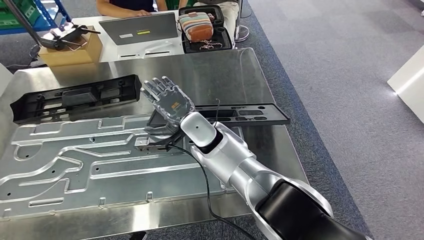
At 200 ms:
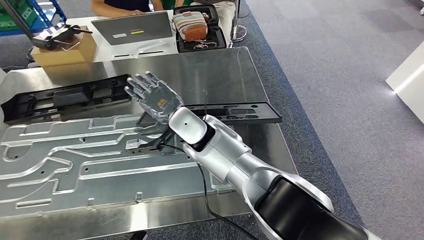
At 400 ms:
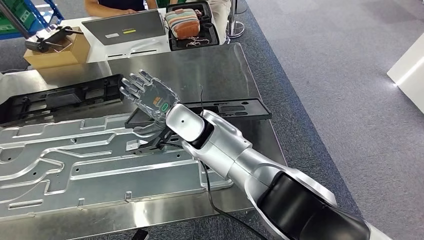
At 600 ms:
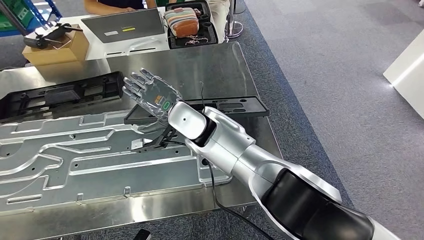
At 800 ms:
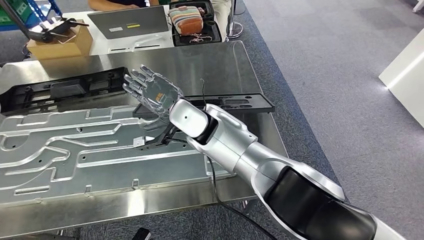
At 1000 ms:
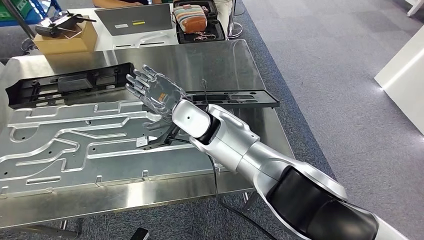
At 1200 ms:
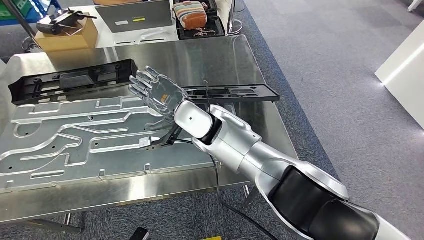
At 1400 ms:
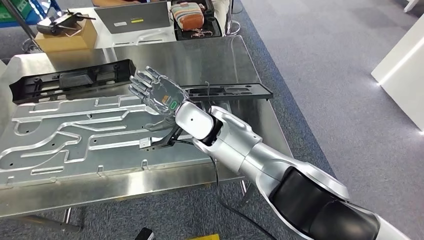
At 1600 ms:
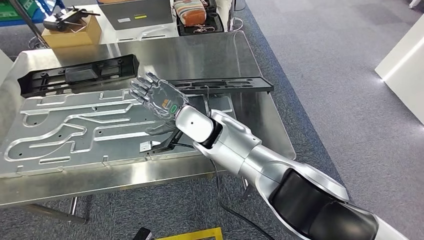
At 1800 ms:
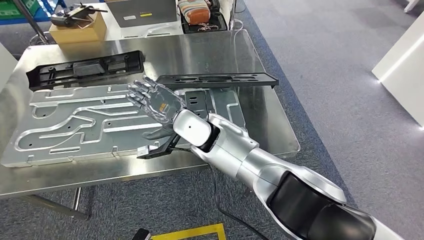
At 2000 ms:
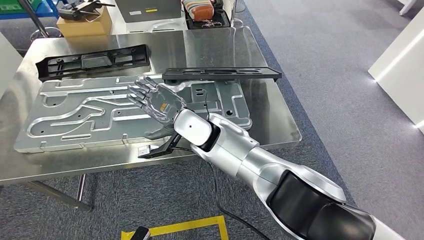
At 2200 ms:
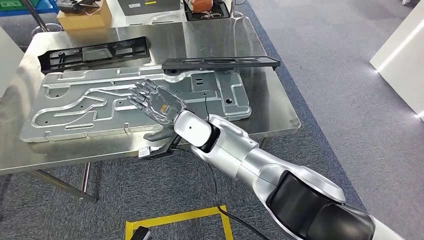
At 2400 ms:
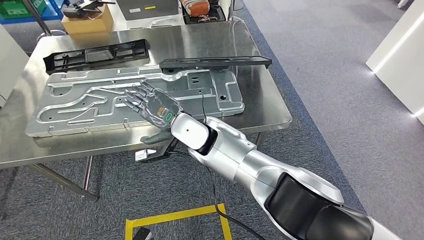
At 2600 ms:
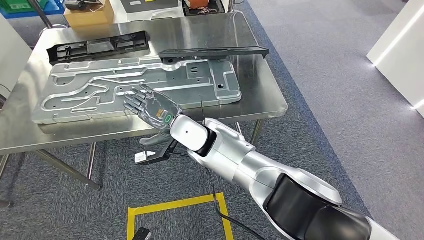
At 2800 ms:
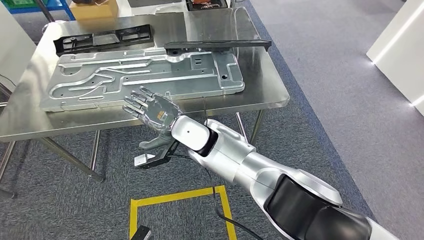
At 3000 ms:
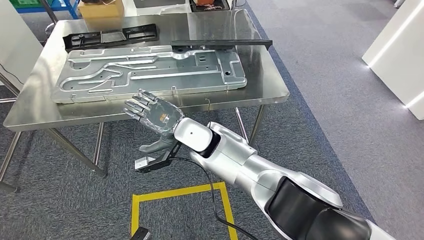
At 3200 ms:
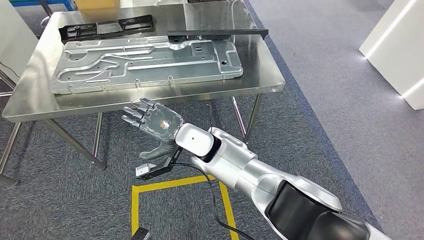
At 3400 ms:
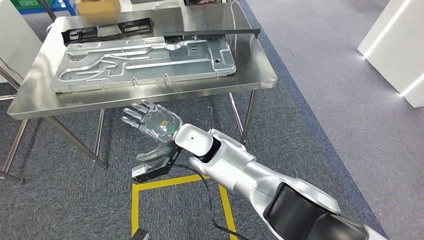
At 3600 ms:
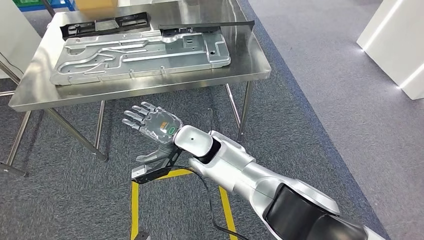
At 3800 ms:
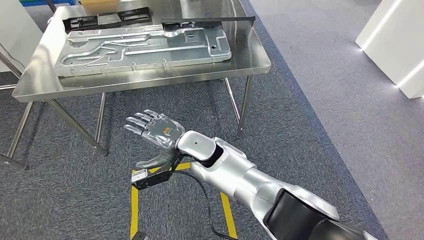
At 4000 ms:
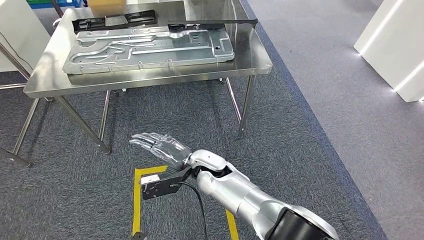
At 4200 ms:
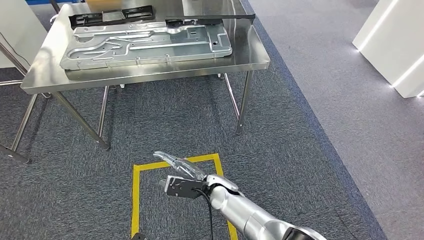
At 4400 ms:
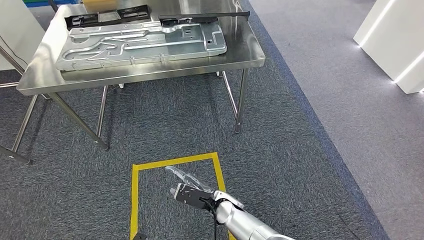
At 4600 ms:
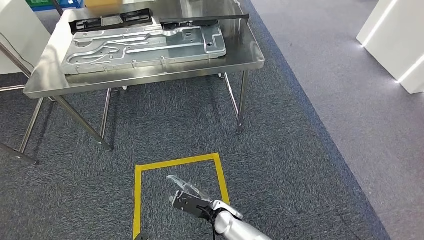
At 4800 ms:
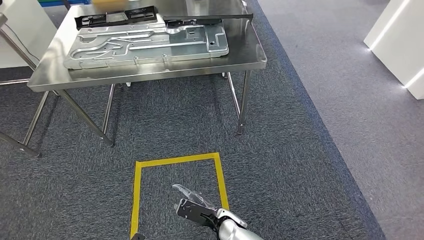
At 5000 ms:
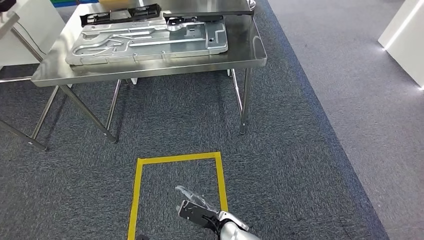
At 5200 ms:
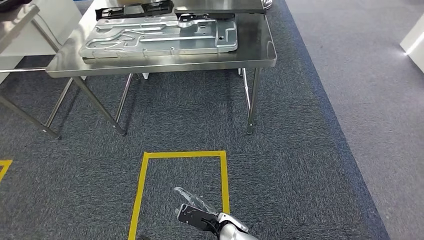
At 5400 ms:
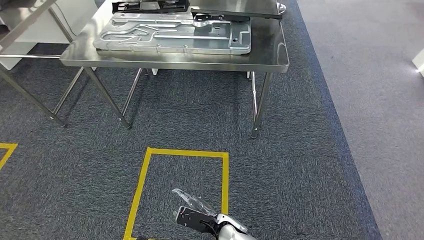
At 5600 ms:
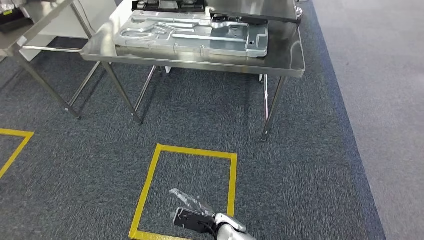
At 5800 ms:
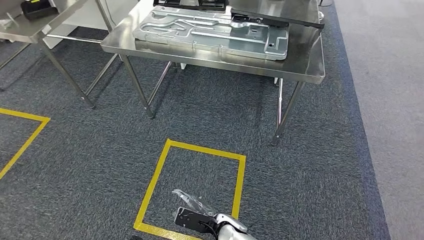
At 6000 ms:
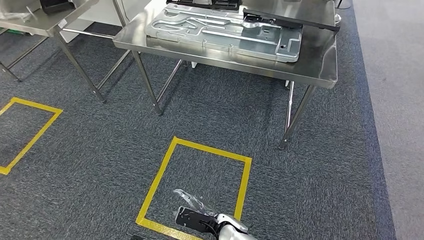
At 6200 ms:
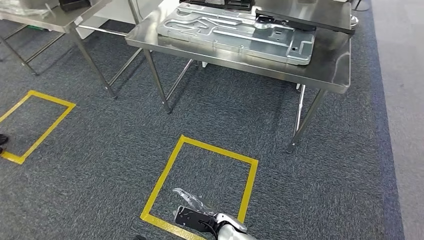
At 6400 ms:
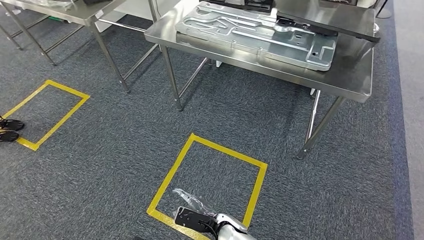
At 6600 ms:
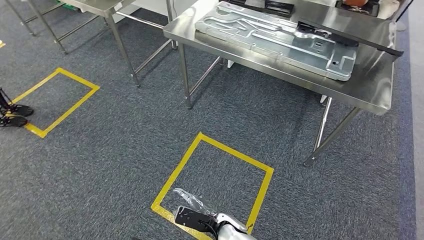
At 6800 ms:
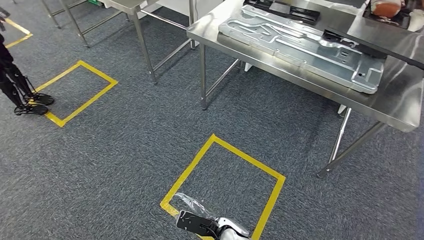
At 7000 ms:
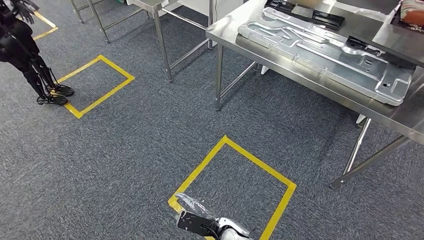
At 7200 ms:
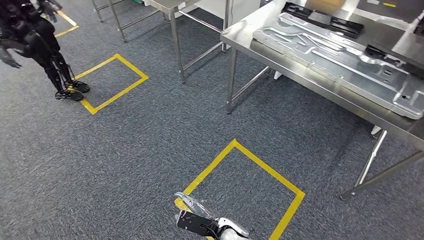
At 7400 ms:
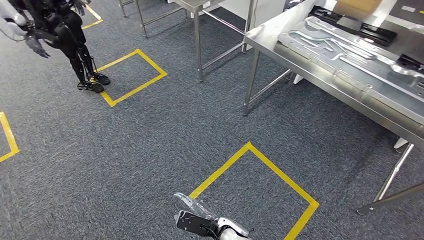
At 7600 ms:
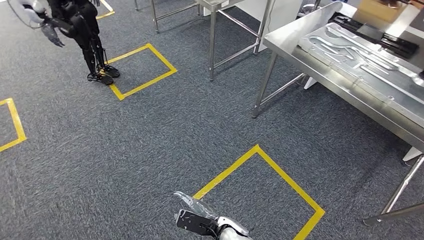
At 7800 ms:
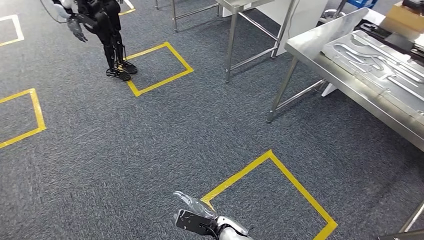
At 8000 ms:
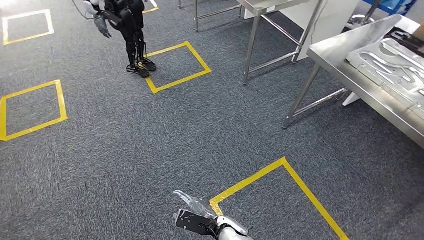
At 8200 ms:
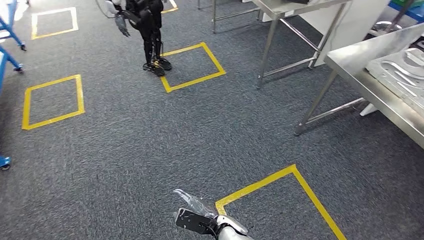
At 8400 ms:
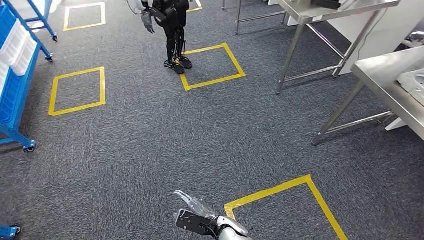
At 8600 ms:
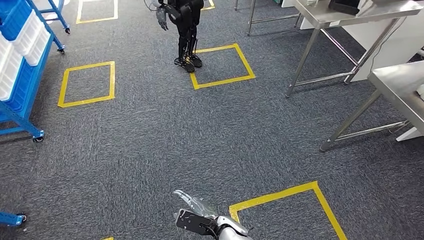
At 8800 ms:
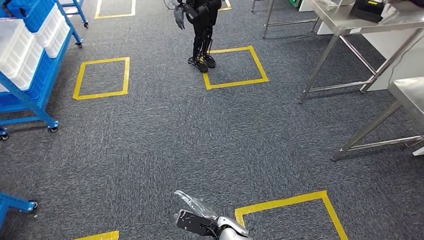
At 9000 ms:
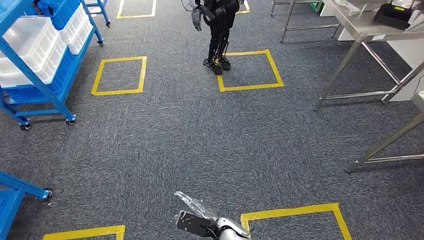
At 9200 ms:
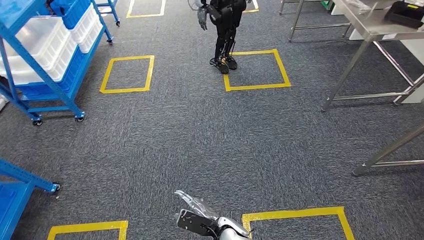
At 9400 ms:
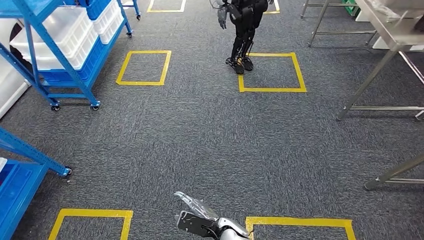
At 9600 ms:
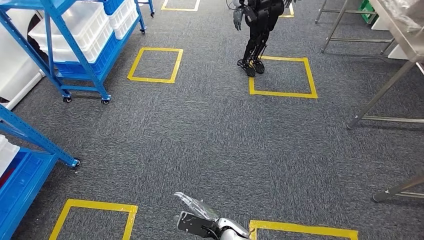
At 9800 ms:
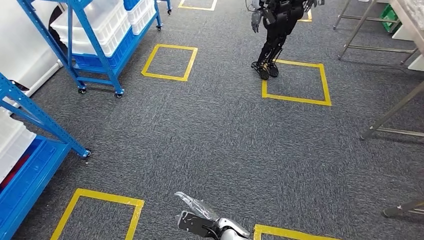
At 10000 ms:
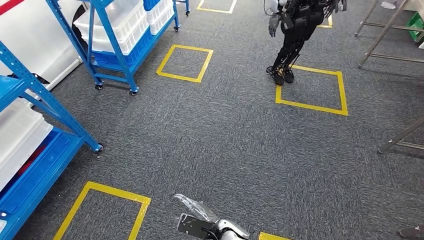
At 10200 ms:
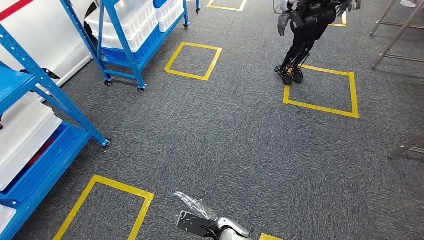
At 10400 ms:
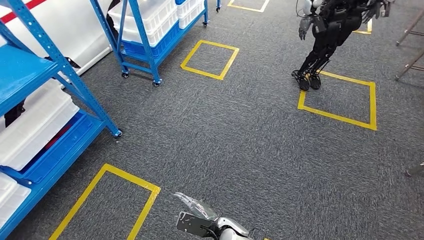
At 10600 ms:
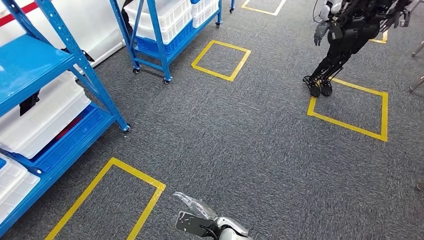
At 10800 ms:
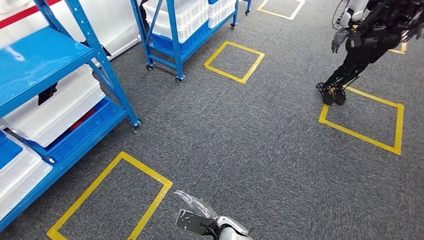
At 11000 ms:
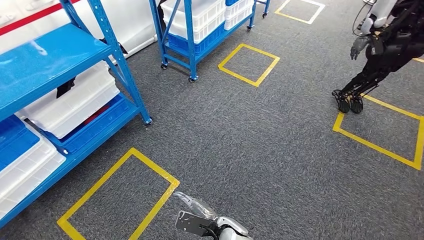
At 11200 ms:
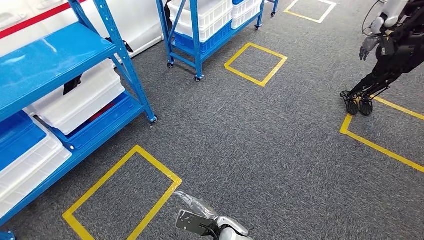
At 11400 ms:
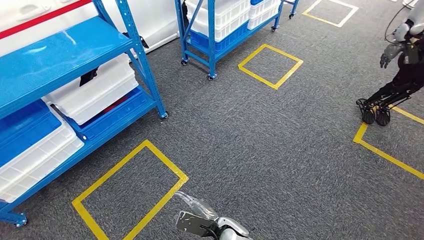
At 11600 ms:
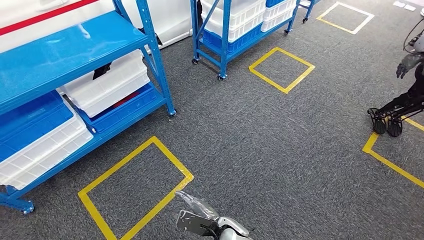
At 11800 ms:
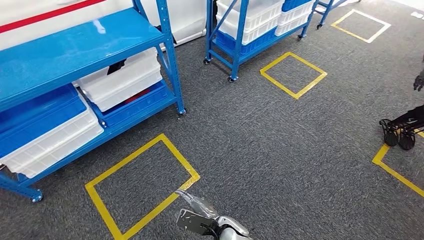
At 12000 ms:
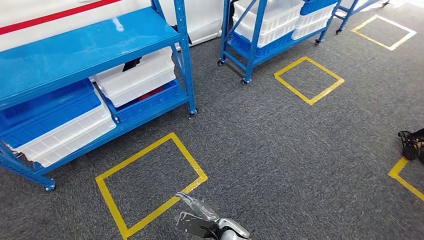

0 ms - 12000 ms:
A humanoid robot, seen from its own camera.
Step, 0 ms - 3200 ms: Insert the large material into the corresponding slot on the workbench.

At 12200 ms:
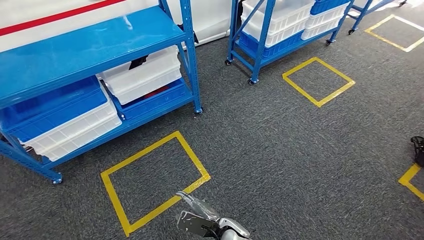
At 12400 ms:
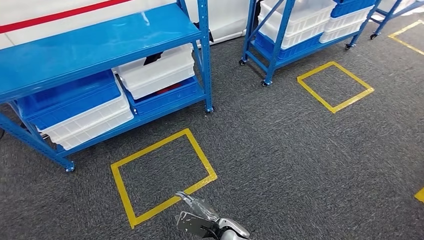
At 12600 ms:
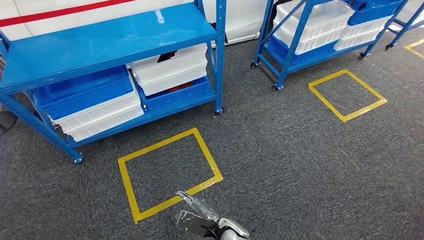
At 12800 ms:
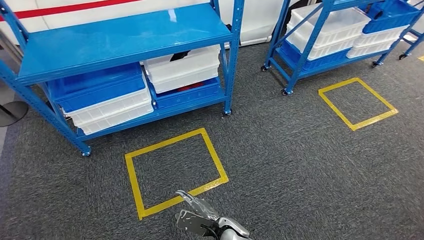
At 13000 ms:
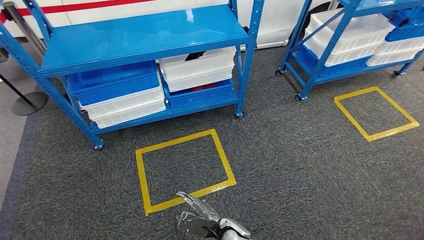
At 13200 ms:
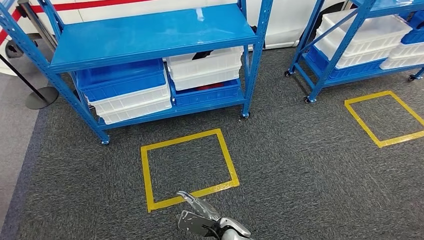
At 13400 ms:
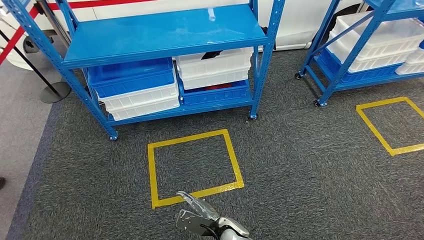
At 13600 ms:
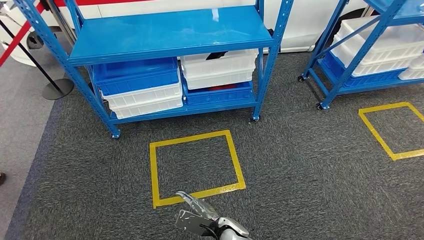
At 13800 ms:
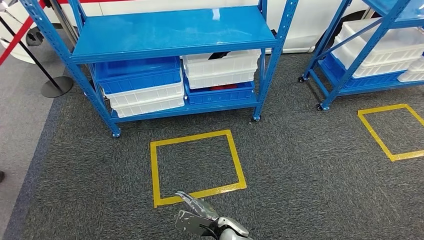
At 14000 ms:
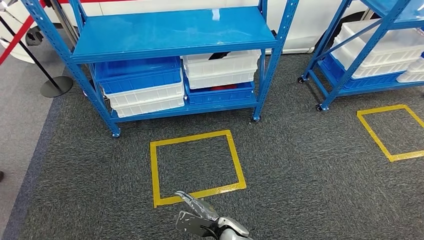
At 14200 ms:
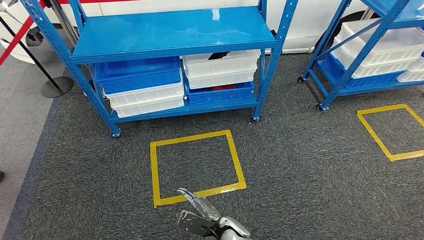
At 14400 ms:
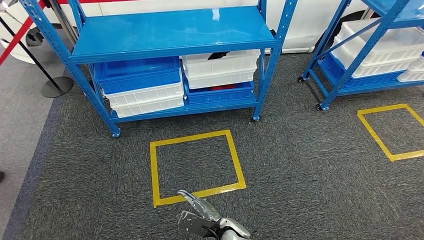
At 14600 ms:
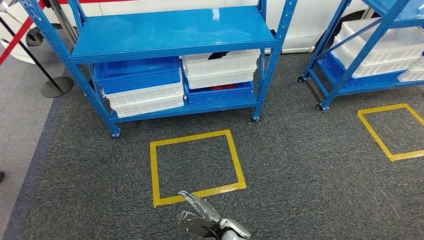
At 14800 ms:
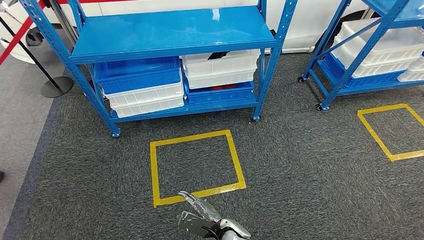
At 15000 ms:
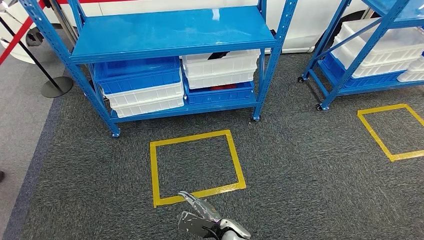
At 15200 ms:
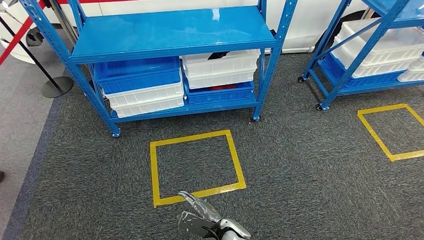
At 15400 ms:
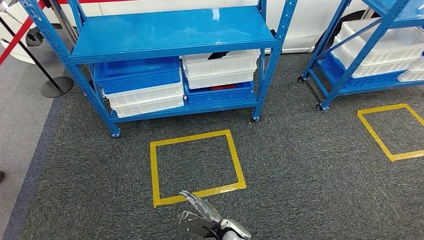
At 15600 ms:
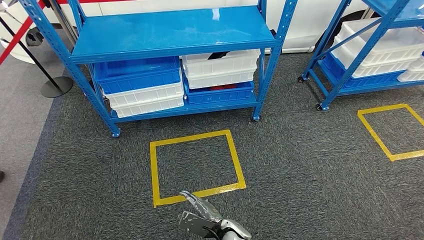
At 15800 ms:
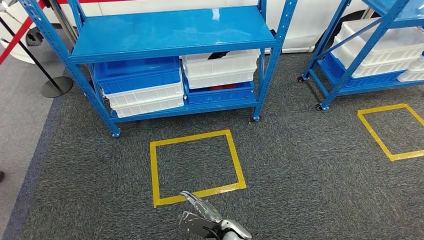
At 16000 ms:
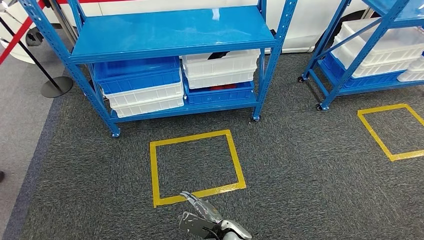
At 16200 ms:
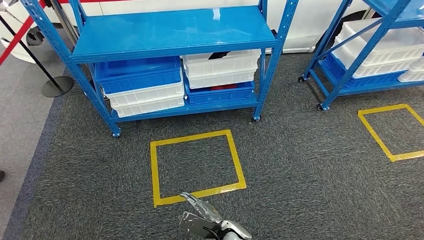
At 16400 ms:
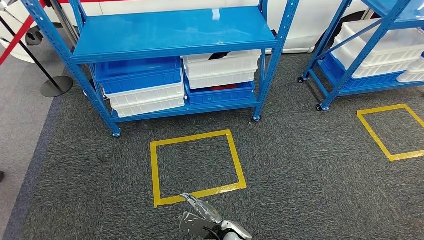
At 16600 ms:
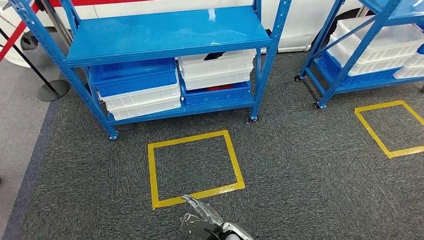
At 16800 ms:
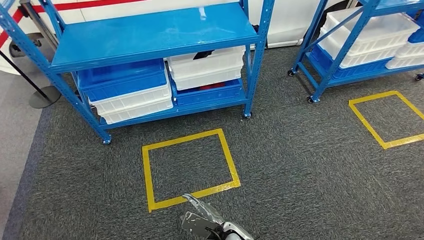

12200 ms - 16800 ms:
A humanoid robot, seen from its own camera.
Step, 12200 ms - 16800 ms: Return to the initial position at the shelf.
13800 ms - 15200 ms: The two hands keep their place.
